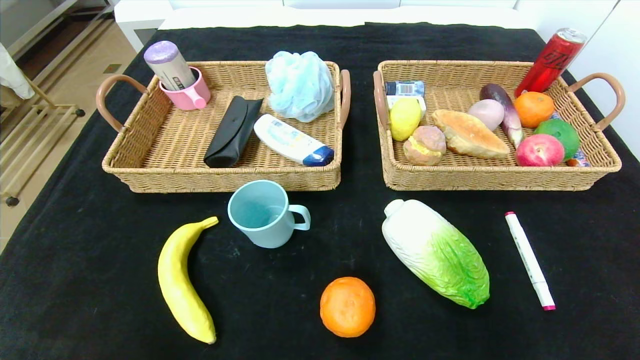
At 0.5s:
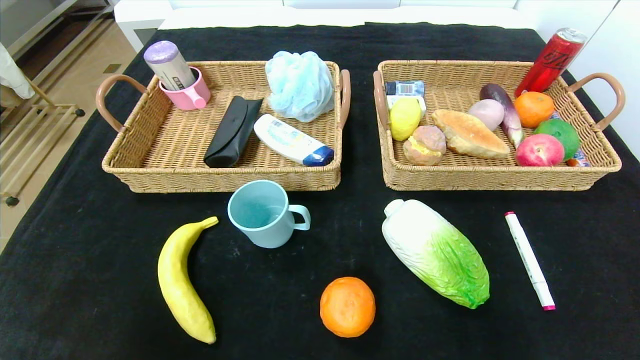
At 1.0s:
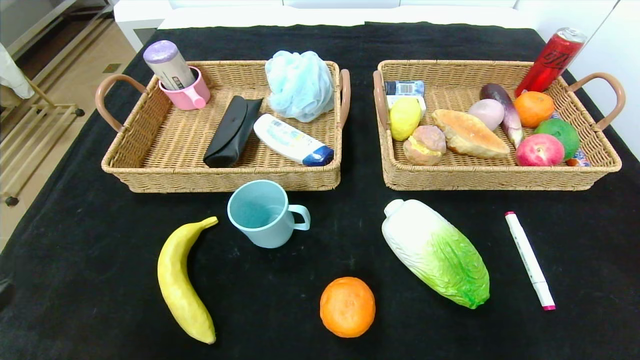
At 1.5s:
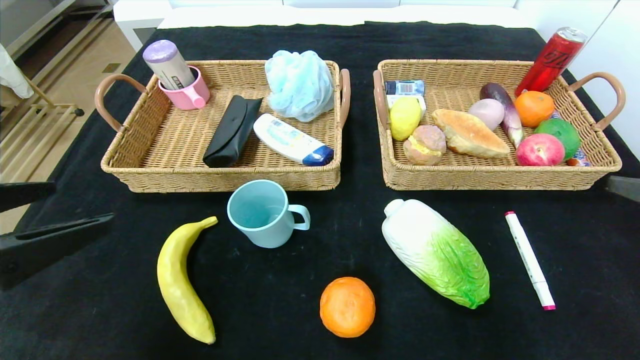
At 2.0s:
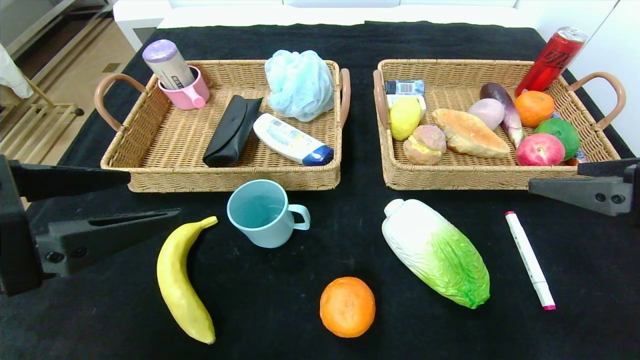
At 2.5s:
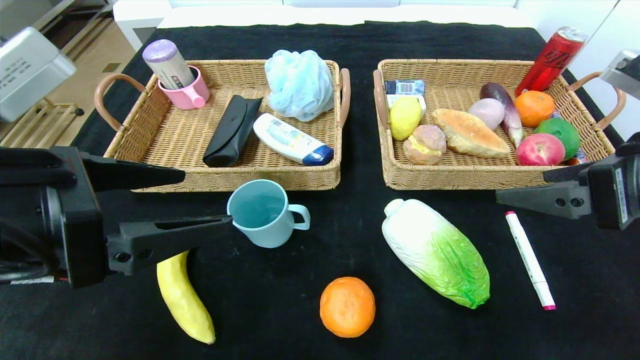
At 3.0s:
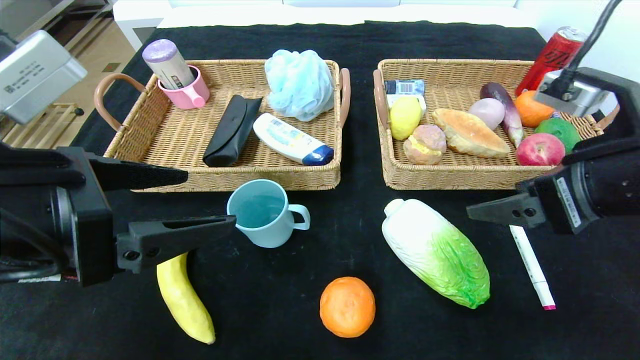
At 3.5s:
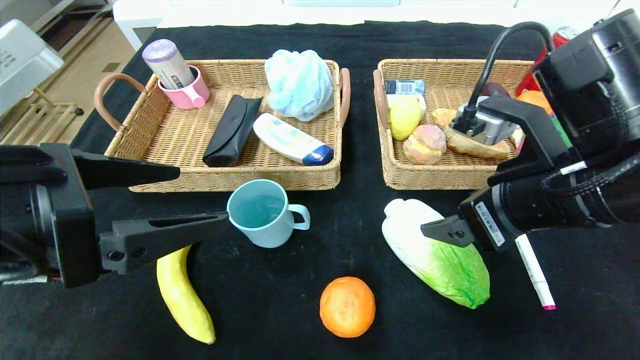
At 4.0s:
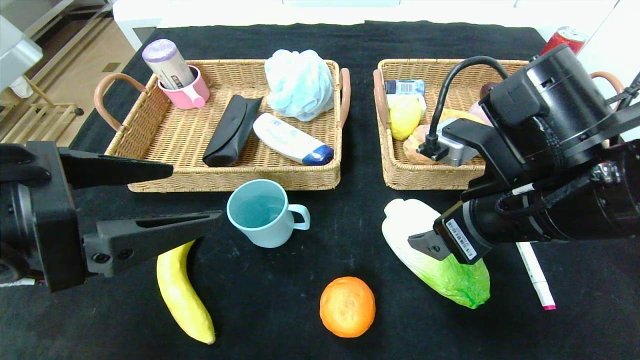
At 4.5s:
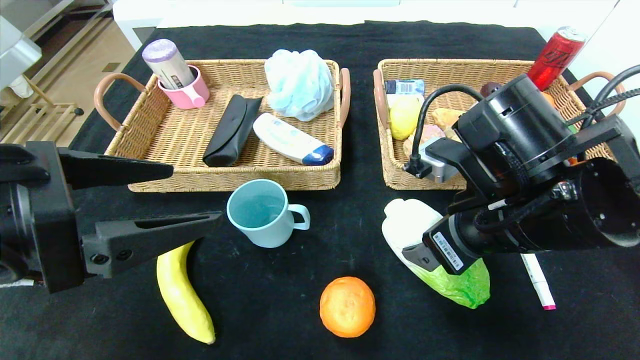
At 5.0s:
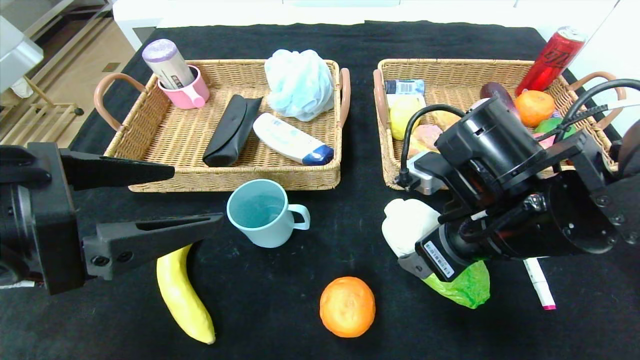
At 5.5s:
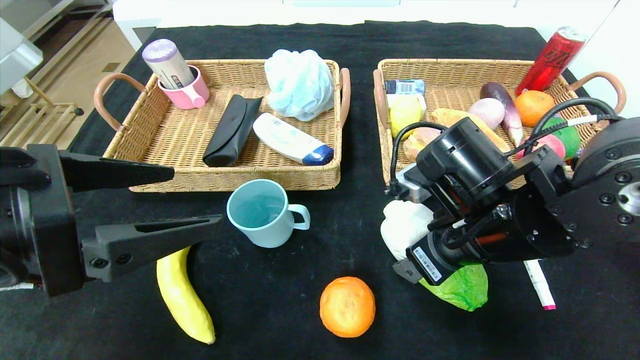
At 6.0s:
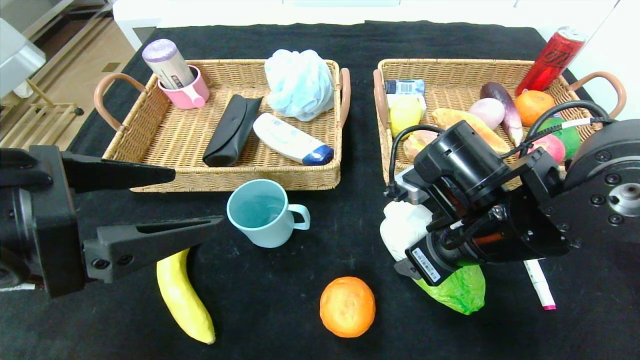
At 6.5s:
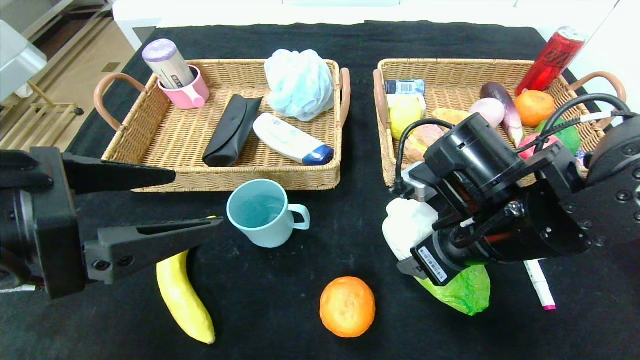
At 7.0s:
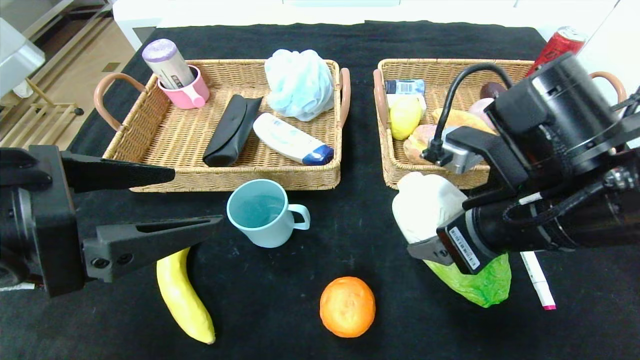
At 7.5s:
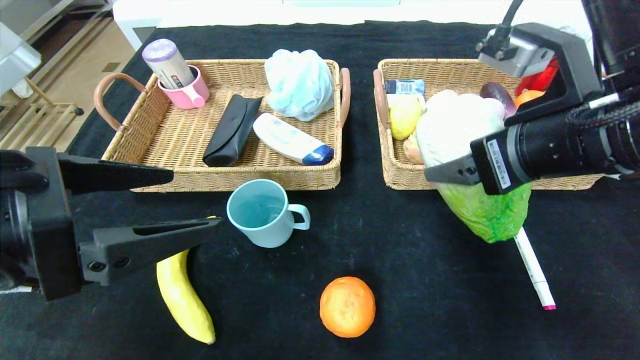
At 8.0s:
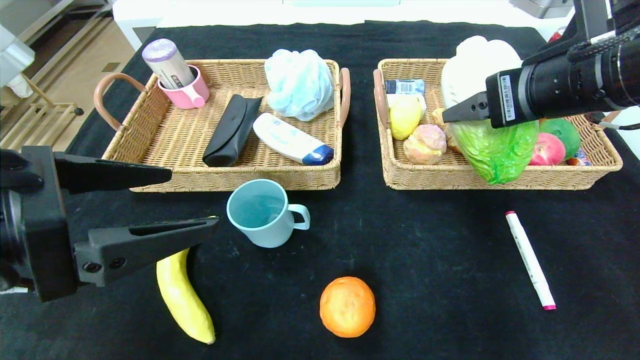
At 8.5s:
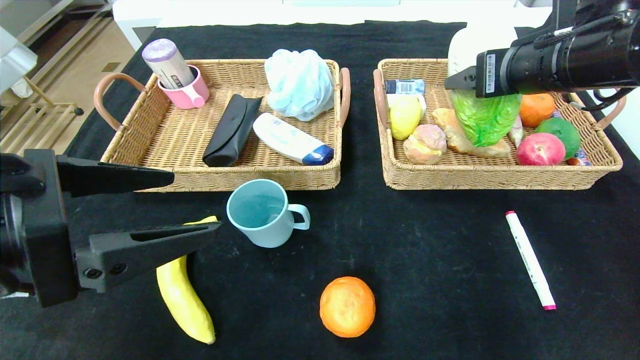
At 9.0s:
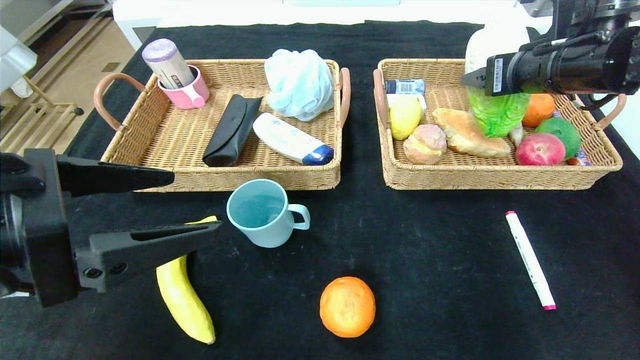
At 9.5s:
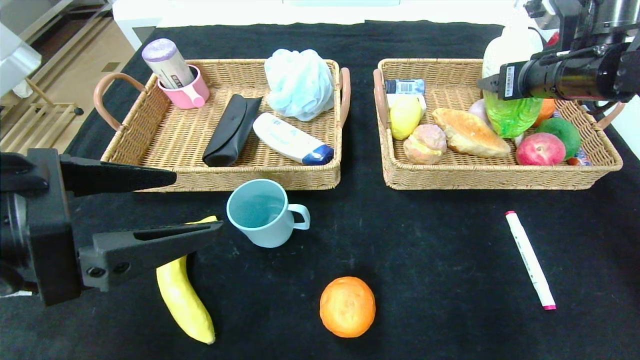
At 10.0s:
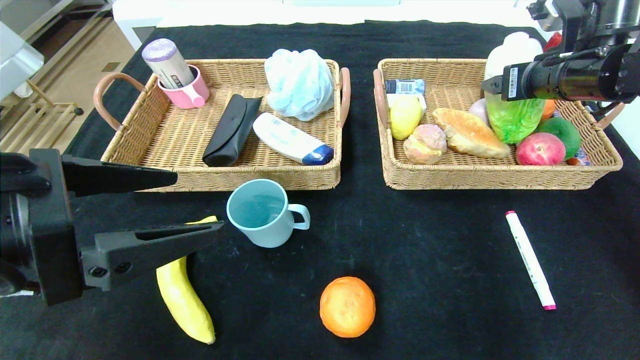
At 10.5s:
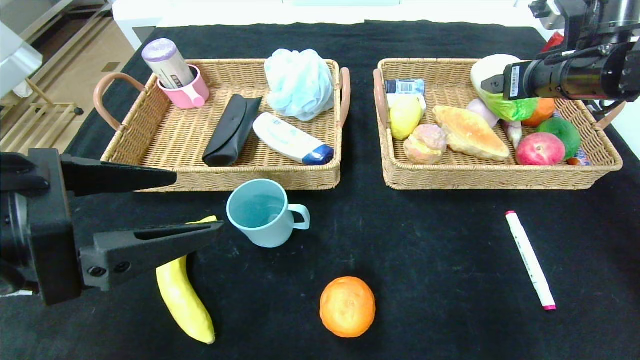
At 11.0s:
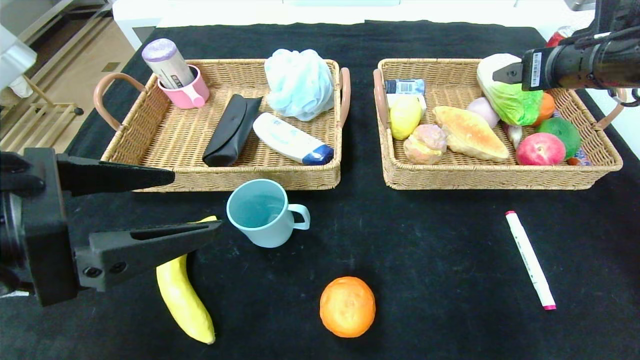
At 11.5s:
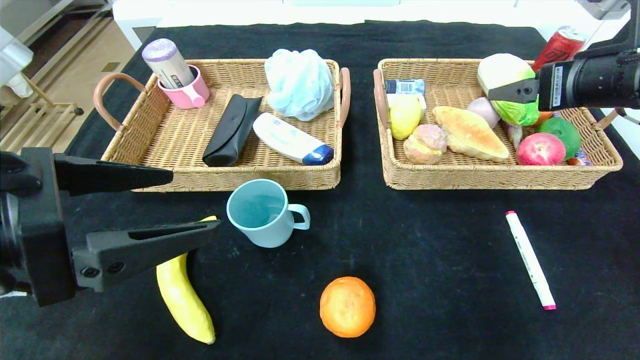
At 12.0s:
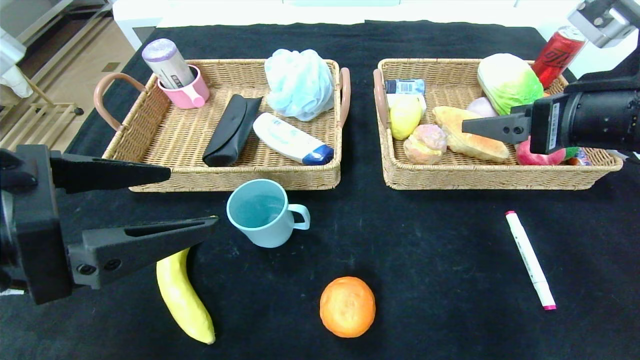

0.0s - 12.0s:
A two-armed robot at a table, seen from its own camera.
Step, 0.0s - 12.0s: Grasp the chinese cabbage and put it in the right basket.
0.0s - 2.0s: Both grippers travel together upward and forward, approximately 30 cm.
2.0s - 4.0s: The right gripper travels to the left by about 15 cm.
4.0s - 6.0s: The right gripper moves roughly 5 cm.
6.0s - 8.0s: The right gripper heads upward and to the right, covering about 15 cm.
8.0s - 10.0s: The right gripper is displaced forward and to the right by roughly 15 cm.
10.0s - 12.0s: The right gripper goes about 15 cm backward.

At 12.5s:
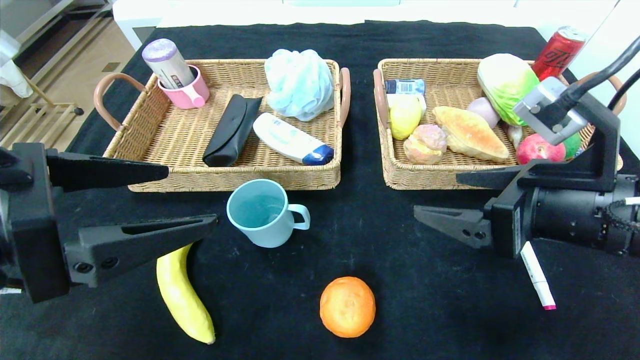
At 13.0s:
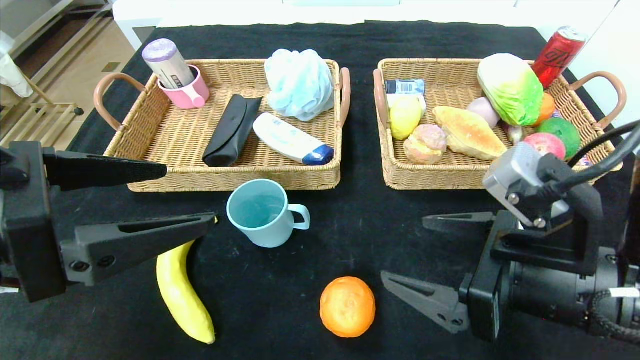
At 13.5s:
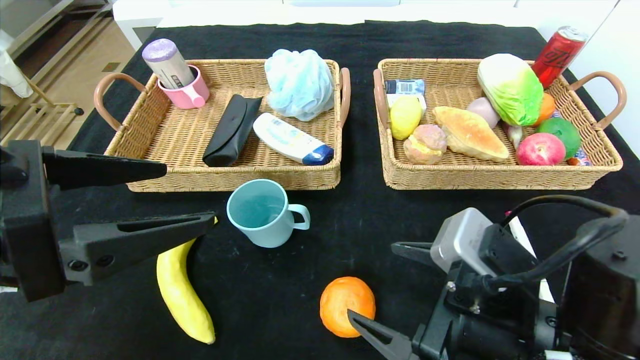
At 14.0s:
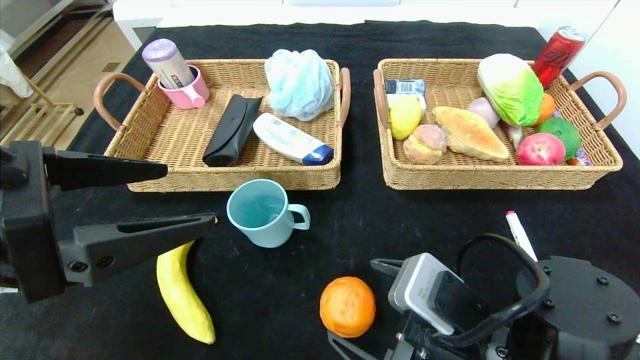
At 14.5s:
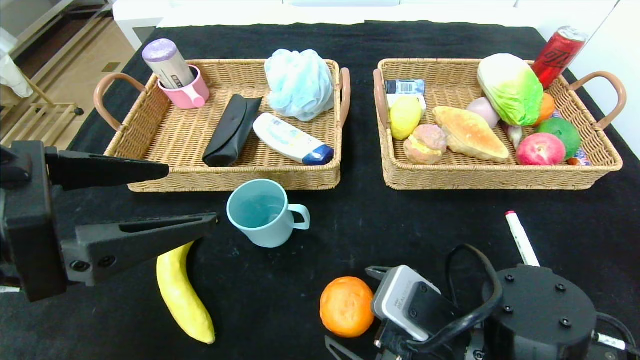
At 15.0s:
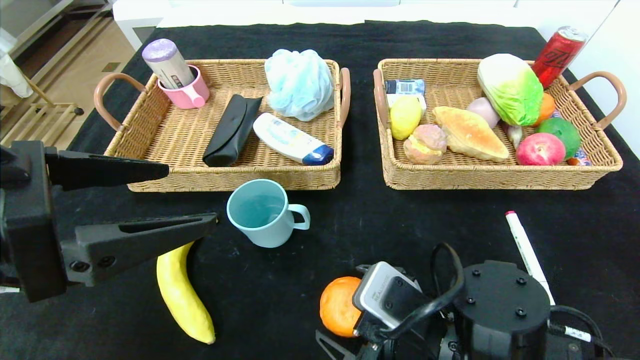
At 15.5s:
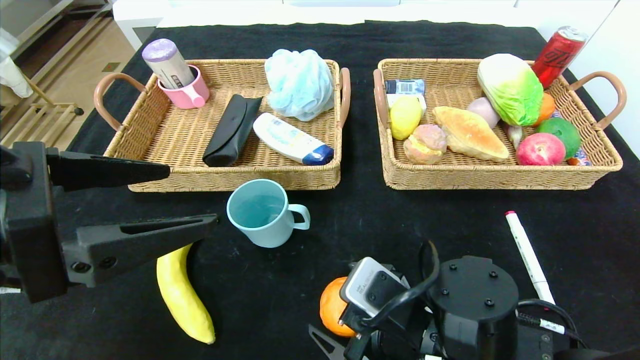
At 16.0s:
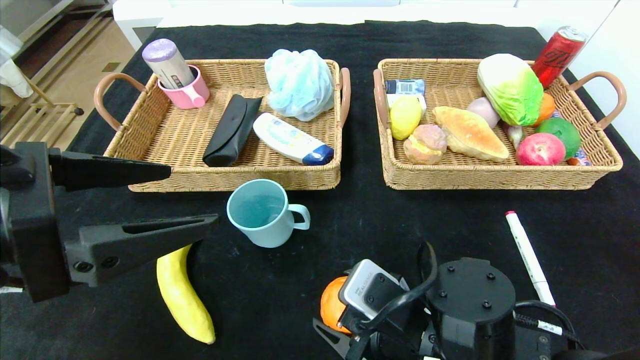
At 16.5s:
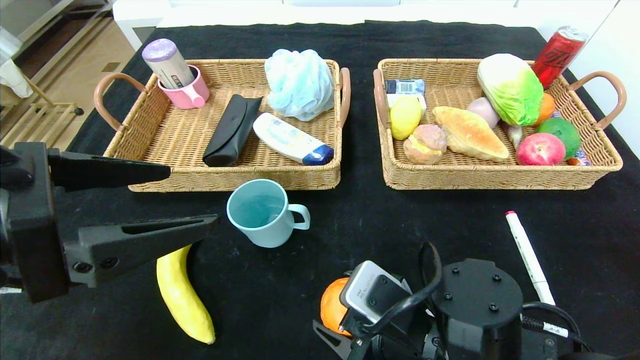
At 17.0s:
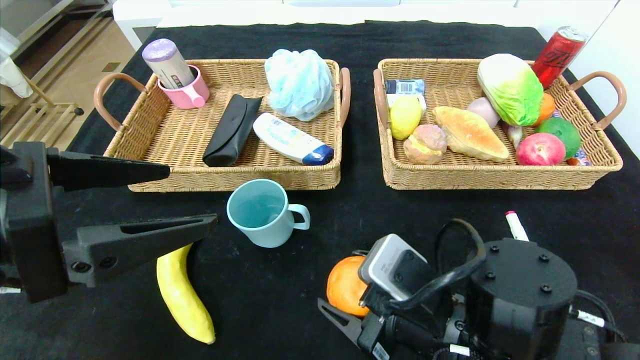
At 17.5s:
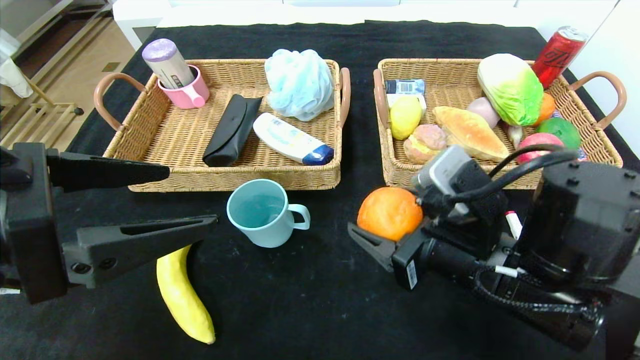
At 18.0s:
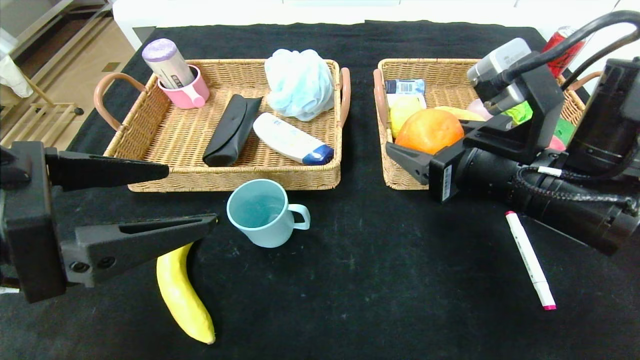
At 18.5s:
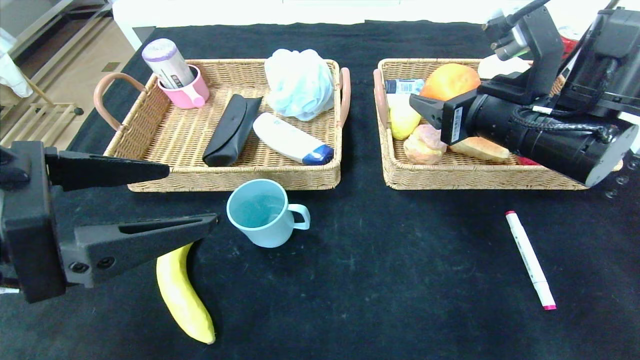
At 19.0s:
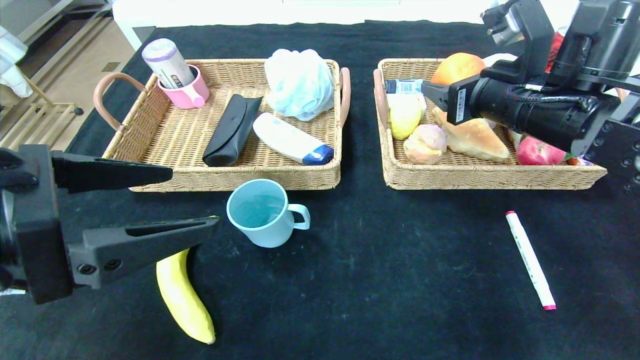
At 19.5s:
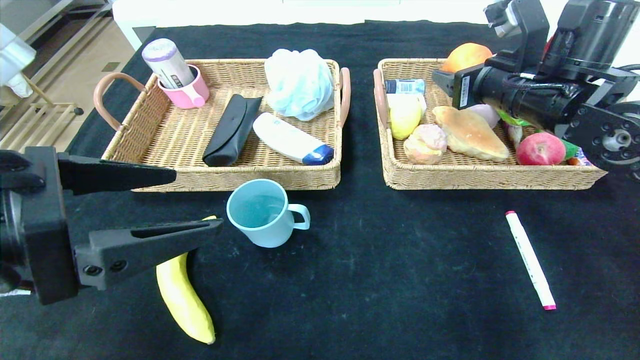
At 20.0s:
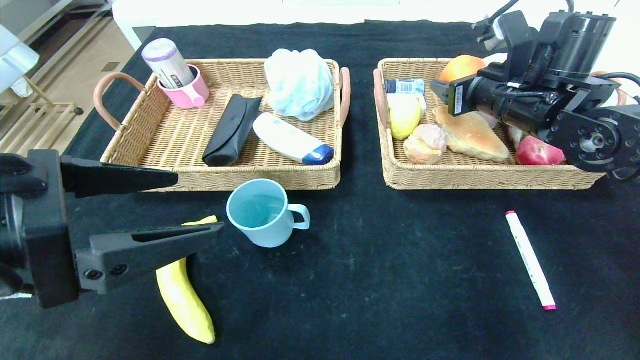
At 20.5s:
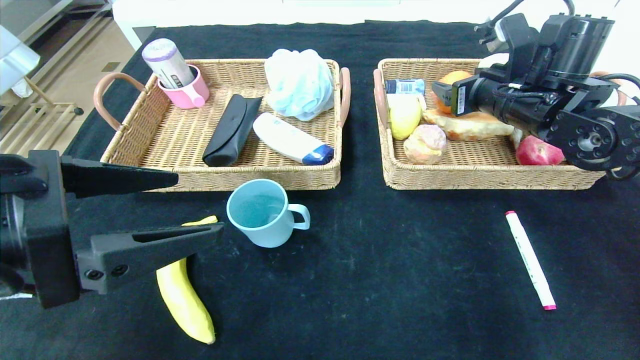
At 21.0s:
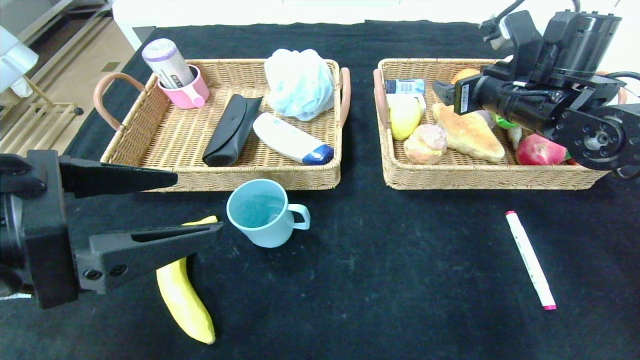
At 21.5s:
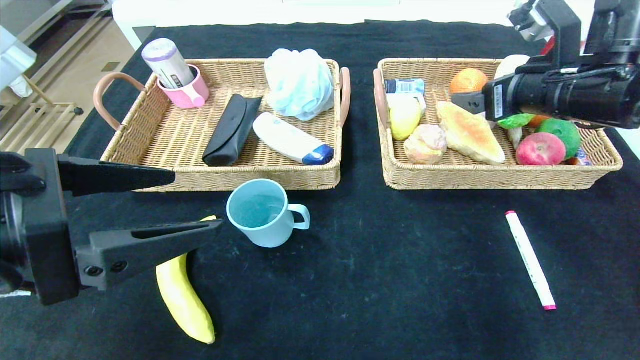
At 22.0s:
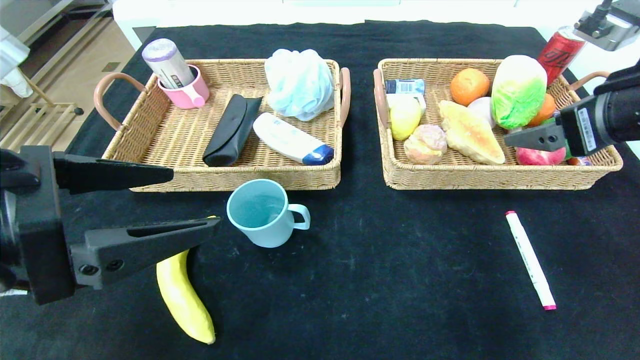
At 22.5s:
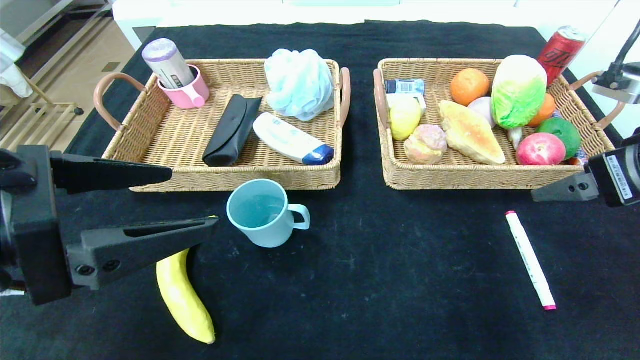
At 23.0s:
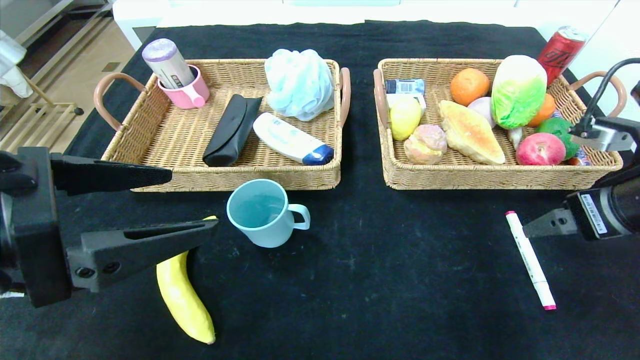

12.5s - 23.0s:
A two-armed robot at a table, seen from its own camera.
Step, 12.5s - 22.0s: Grasp the orange and put it in the right basket.
12.5s - 14.5s: The right gripper moves downward and to the left, some 15 cm.
14.5s - 16.5s: The grippers stay close to where they were, moving slightly.
16.5s - 19.0s: The right gripper heads upward, forward and to the right, covering roughly 25 cm.
19.0s - 21.0s: The right gripper travels forward by about 5 cm.
21.0s - 23.0s: The right gripper heads backward, covering some 15 cm.
